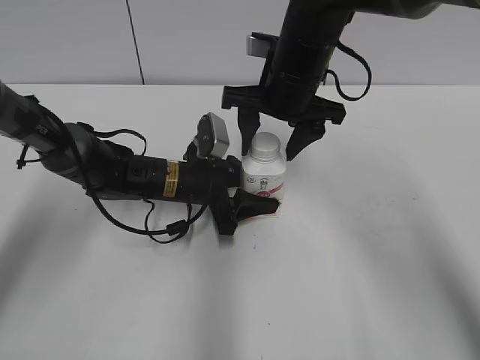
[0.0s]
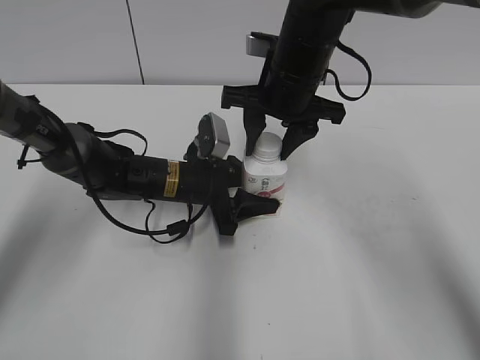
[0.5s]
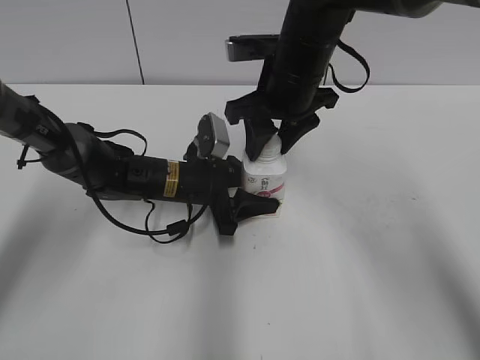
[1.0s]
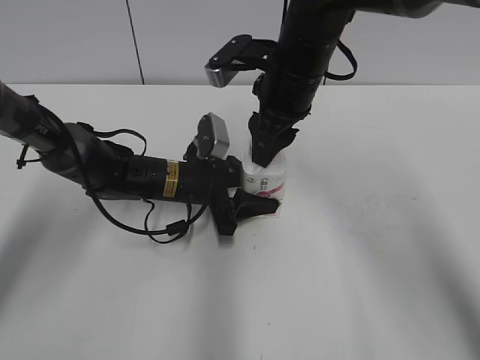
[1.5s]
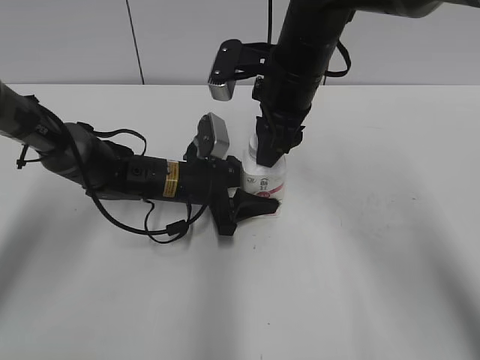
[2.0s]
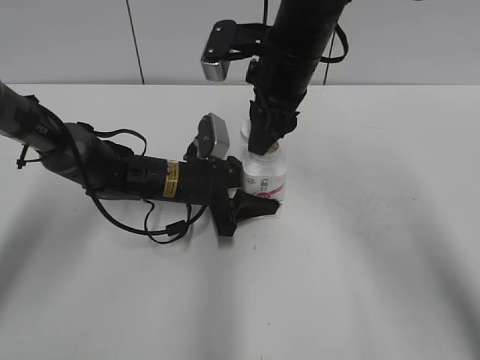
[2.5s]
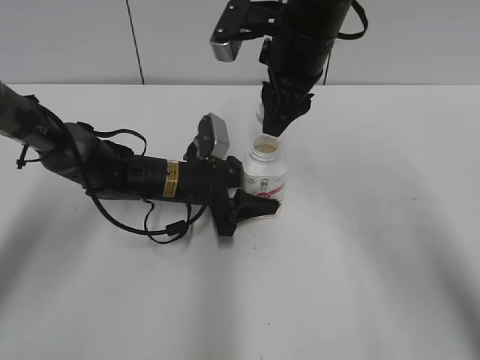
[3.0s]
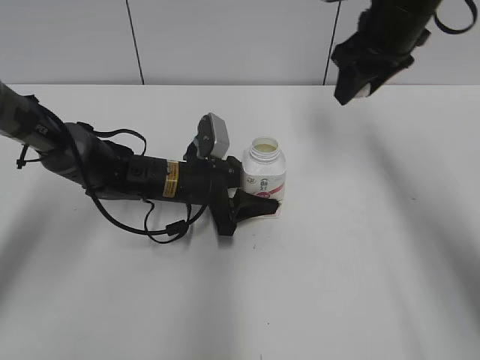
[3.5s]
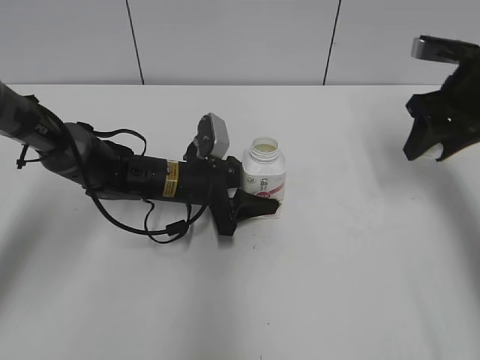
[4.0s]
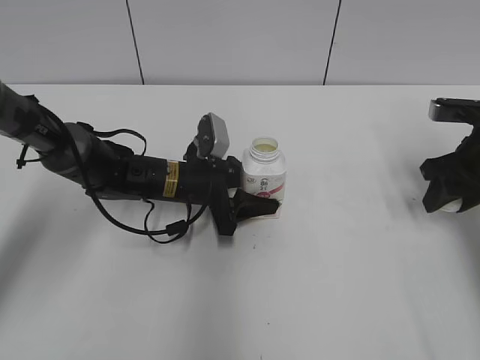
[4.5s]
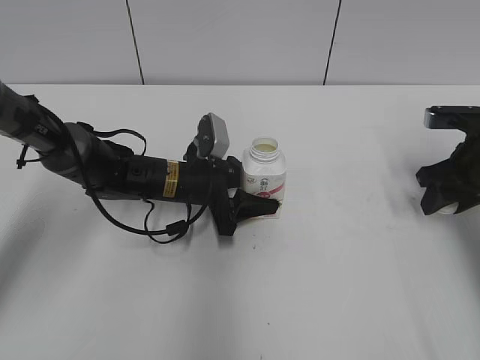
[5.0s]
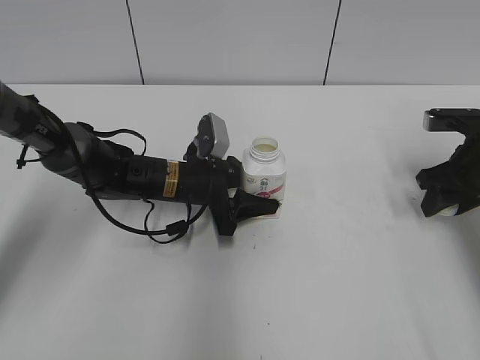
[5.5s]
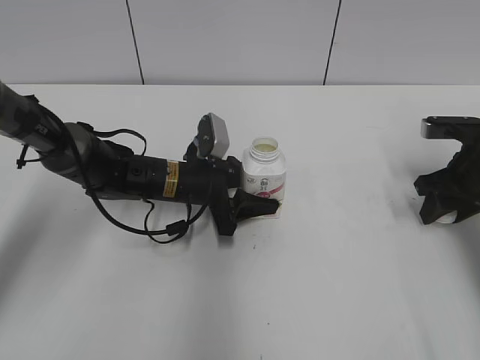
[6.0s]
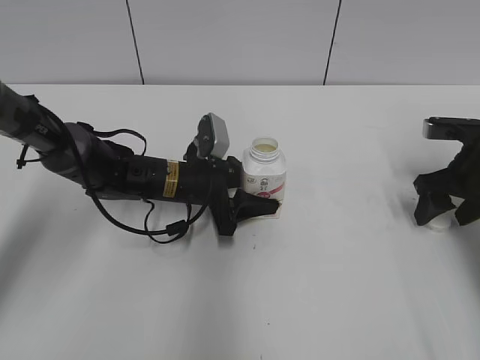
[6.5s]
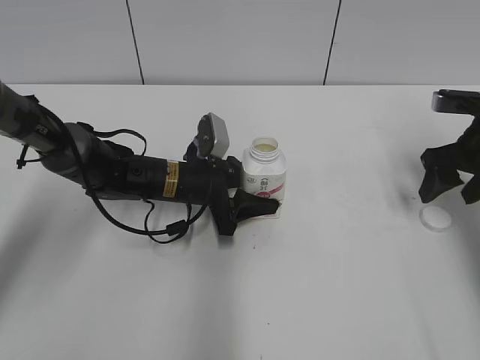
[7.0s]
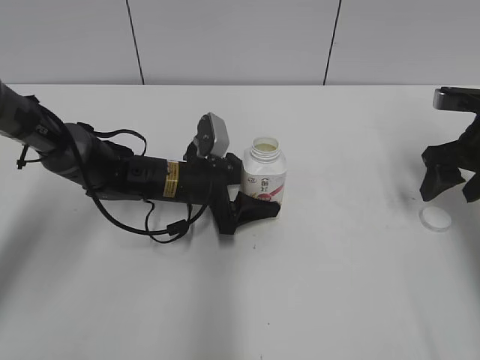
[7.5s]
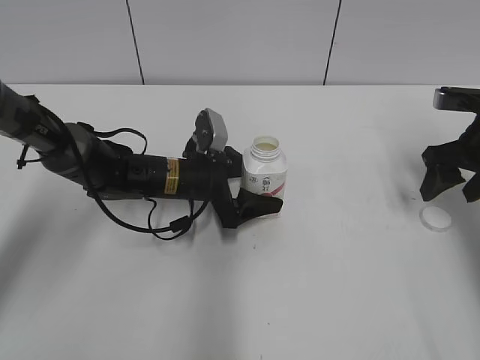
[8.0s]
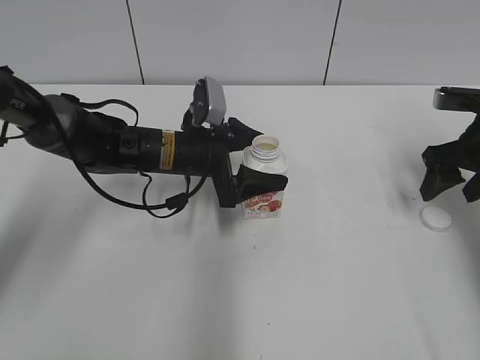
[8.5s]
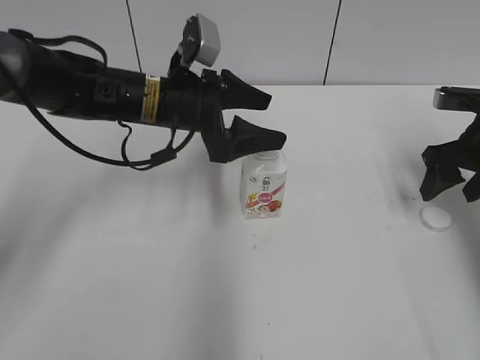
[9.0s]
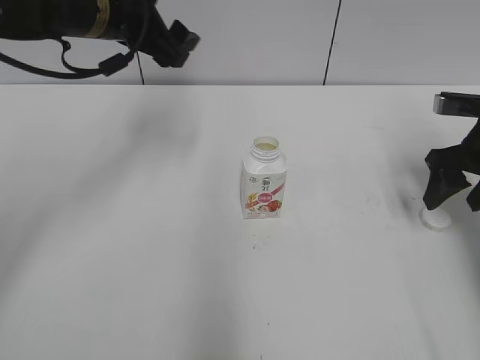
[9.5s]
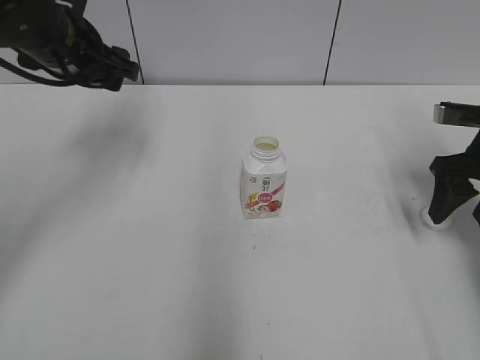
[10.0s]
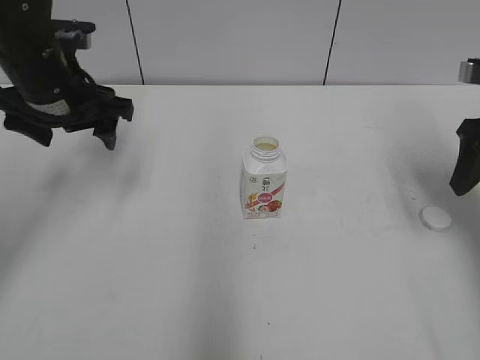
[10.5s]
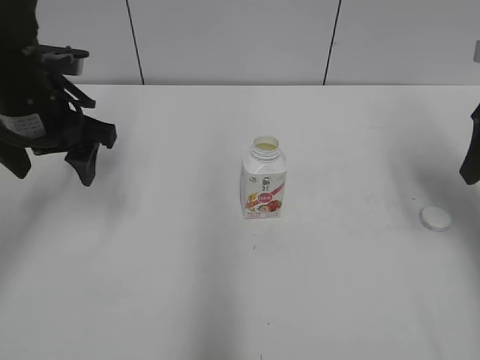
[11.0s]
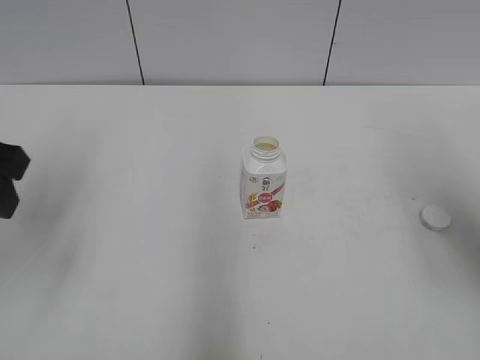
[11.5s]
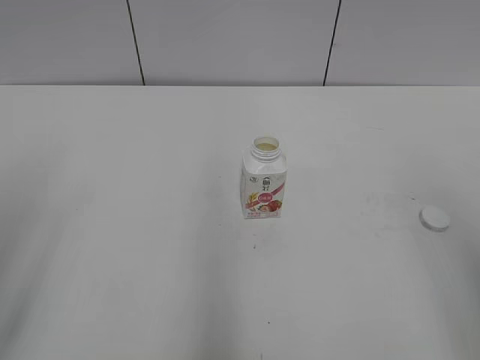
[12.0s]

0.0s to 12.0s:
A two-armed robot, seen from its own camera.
Step, 0.0s to 2.0s: Fix the Yili Changqing on the left.
Step, 2.5s to 6.5s: Place the bottle cap on the right.
Step, 7.0s to 8.0s: Place the Yili Changqing with the left hand.
0.0s to 2.0s: The right gripper closes its fingers.
2.0s to 4.0s: The right gripper moves to the right, some 20 cm.
4.0s to 6.0s: The right gripper travels downward by about 10 cm.
6.0s to 8.0s: The left gripper opens up. The right gripper opens.
8.0s to 10.0s: The left gripper is displaced upward and to the left by some 25 cm.
10.0s to 12.0s: The left gripper moves backward, approximately 30 cm, and closes up. Meanwhile the right gripper shifts some 30 cm backward and upward.
